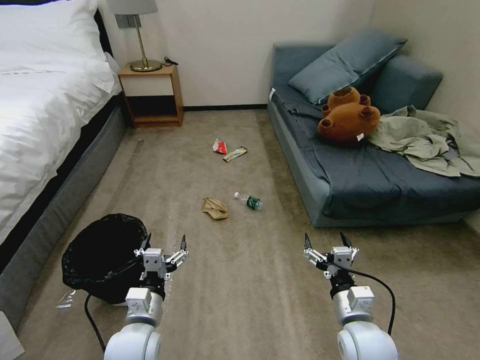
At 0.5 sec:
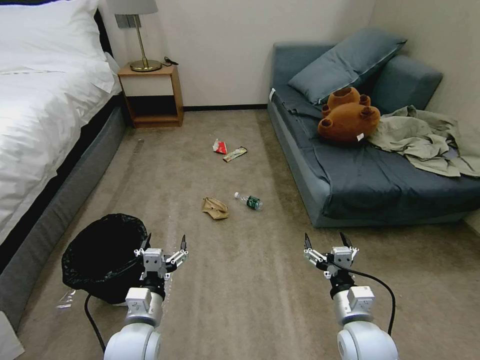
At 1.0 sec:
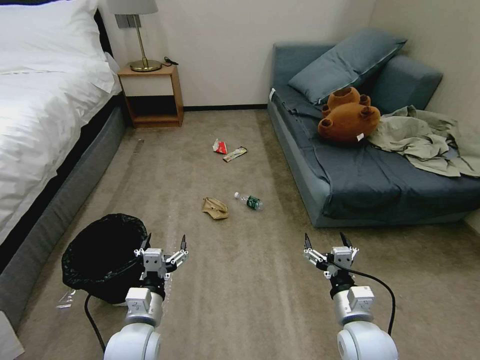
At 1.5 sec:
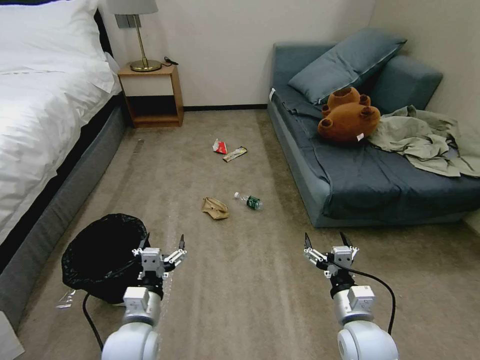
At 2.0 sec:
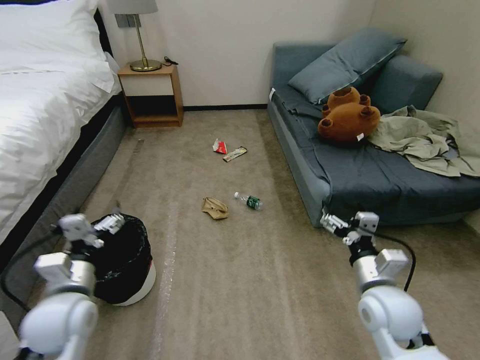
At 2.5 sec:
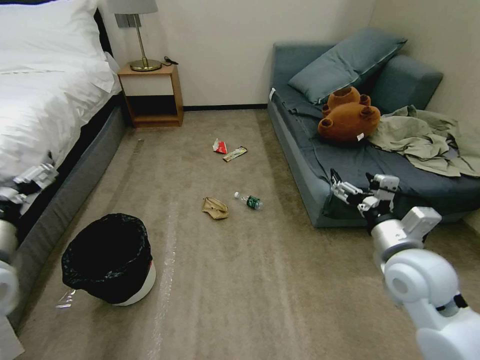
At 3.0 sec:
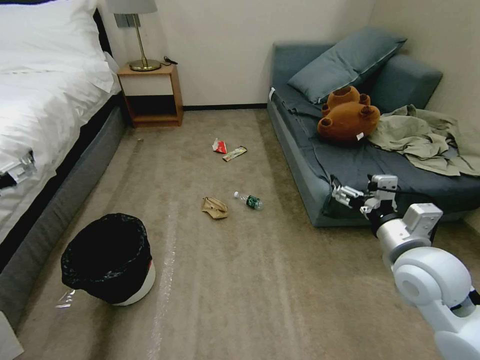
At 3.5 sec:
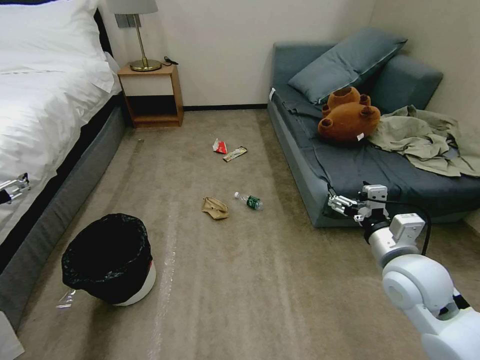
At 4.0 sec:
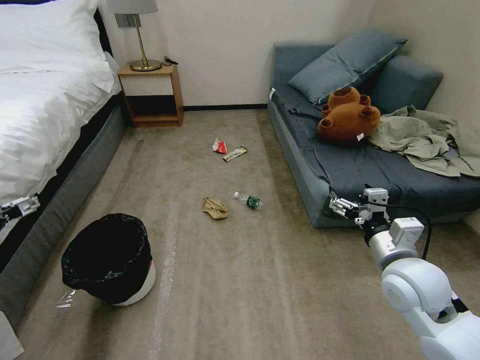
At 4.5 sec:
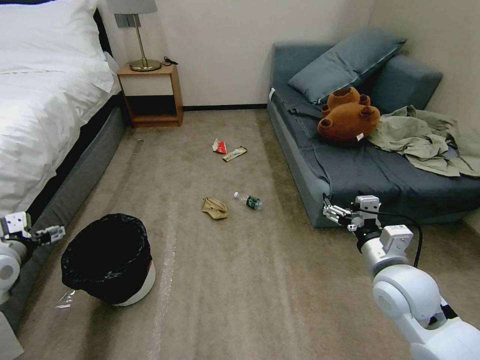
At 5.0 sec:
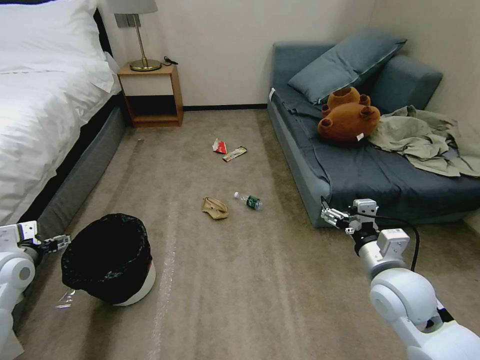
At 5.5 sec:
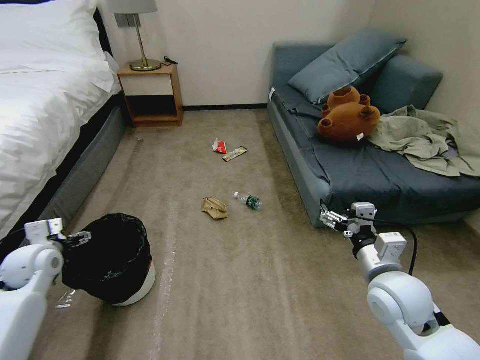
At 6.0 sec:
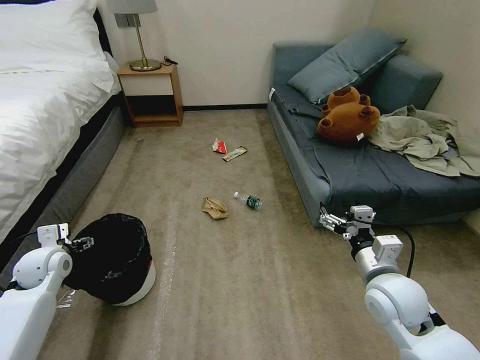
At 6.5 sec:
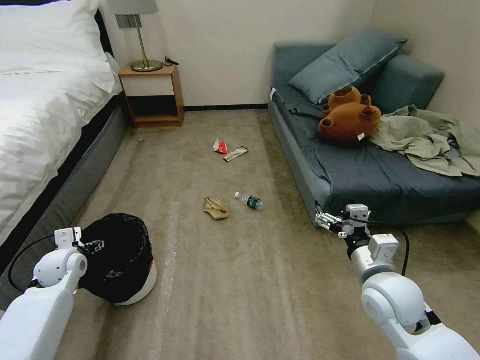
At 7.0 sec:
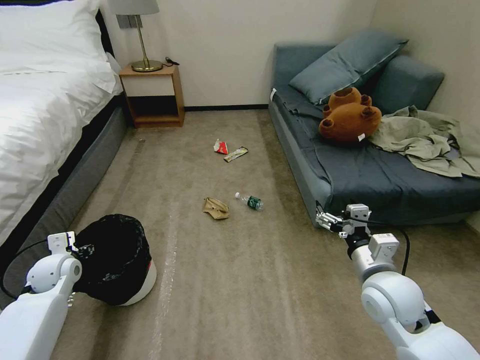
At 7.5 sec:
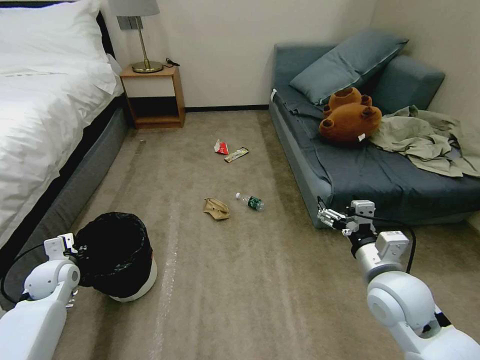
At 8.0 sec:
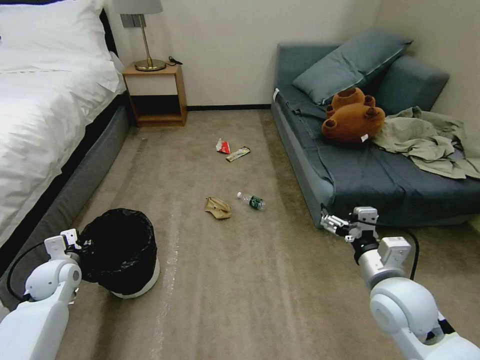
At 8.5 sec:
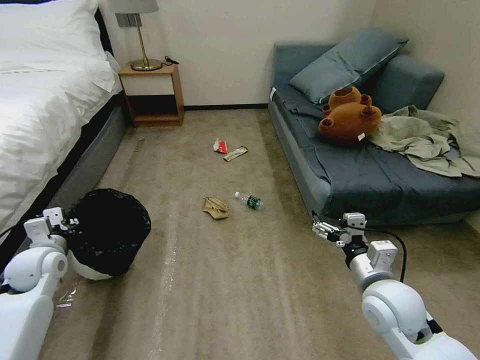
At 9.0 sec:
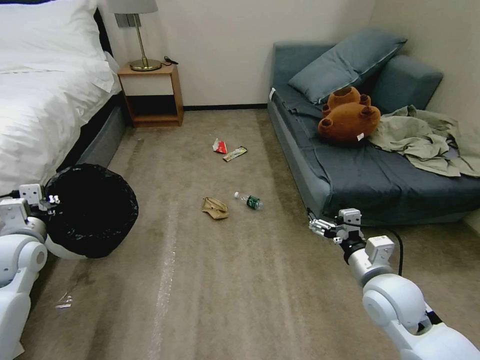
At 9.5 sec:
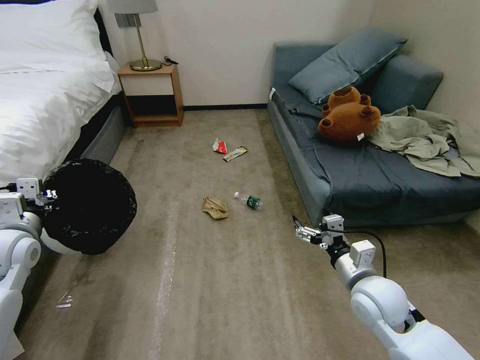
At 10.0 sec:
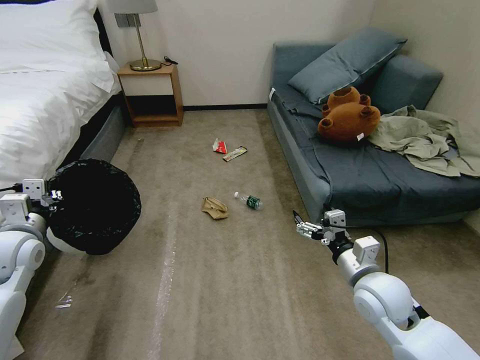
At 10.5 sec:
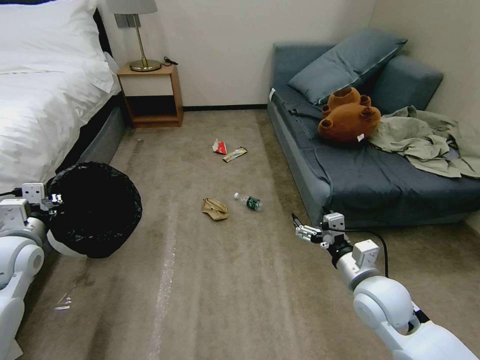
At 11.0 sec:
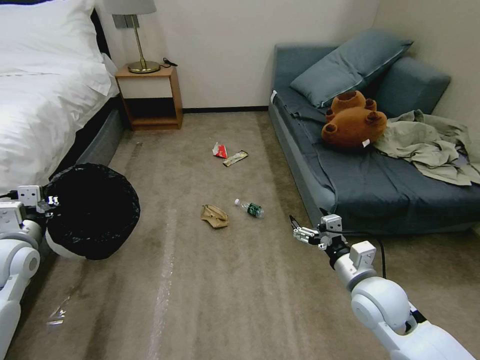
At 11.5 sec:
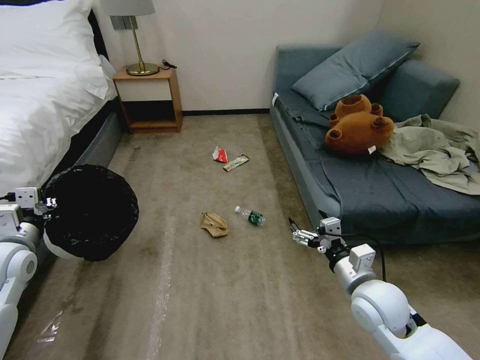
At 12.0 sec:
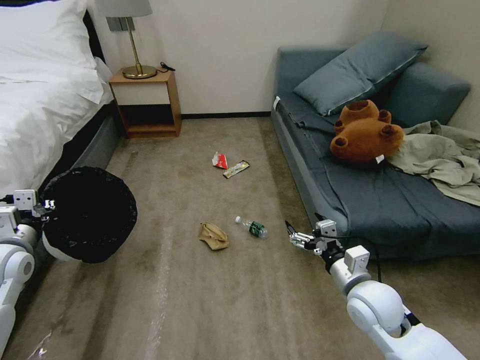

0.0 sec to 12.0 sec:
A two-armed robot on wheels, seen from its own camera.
Task of the whole recording: Pick up the trash bin, then pick up the garbage on the floor and place it into the trash bin.
2.0 sec to 4.0 sec: The left gripper travels to the left and upward by some 20 cm. The right gripper heads upward, covering some 5 cm.
4.0 sec to 6.0 sec: The left gripper goes approximately 20 cm downward and forward.
6.0 sec to 8.0 sec: The left gripper closes.
8.0 sec to 10.0 sec: The left gripper moves upward, about 15 cm.

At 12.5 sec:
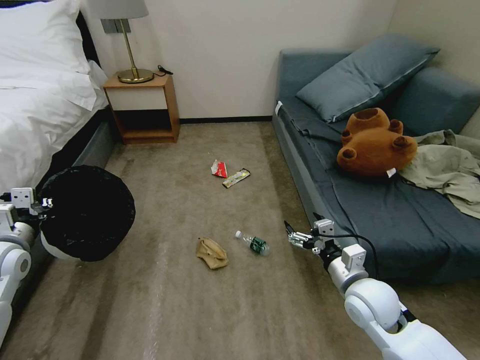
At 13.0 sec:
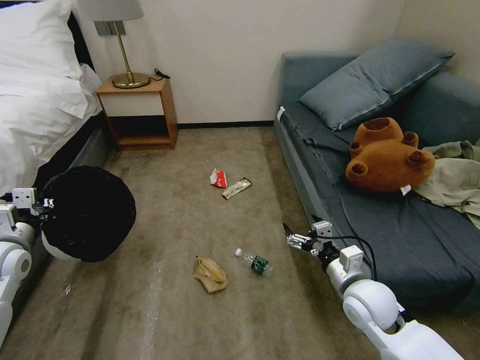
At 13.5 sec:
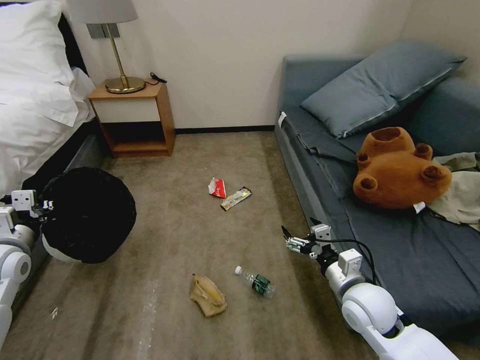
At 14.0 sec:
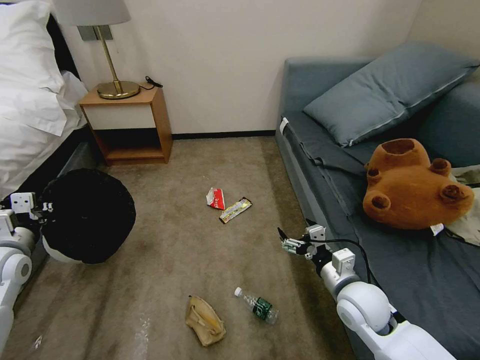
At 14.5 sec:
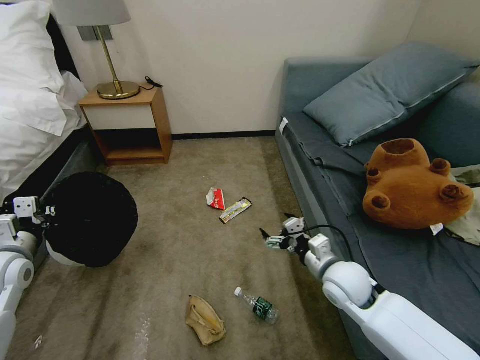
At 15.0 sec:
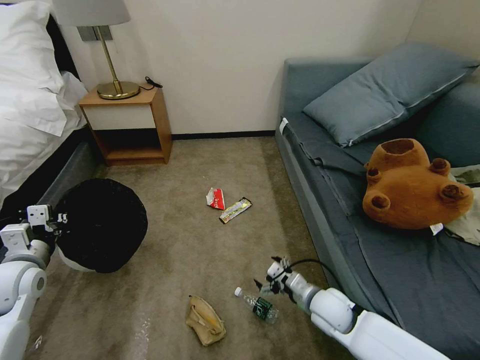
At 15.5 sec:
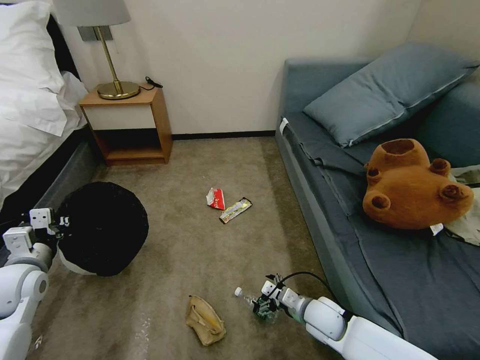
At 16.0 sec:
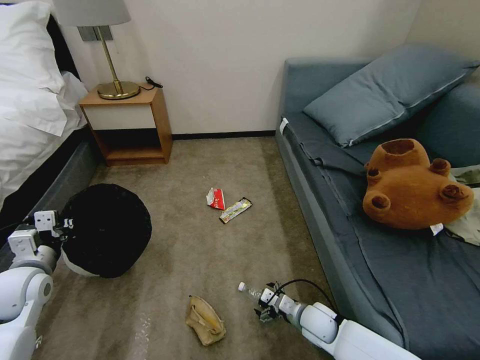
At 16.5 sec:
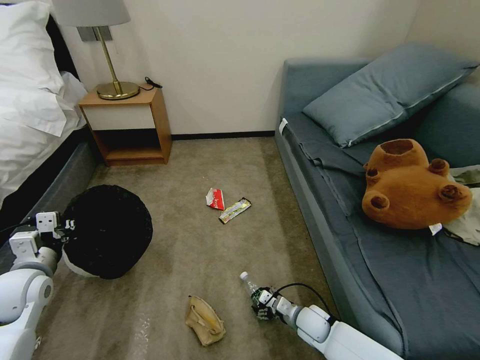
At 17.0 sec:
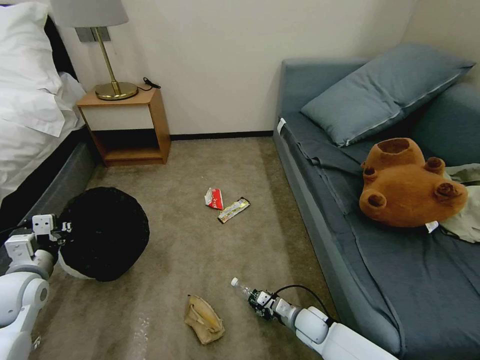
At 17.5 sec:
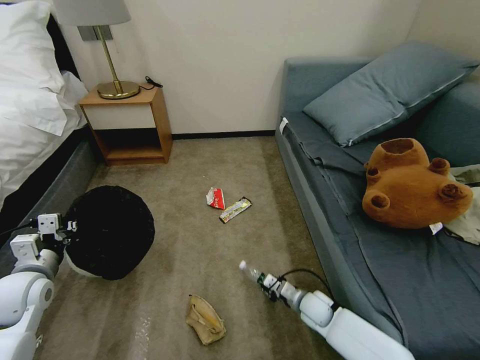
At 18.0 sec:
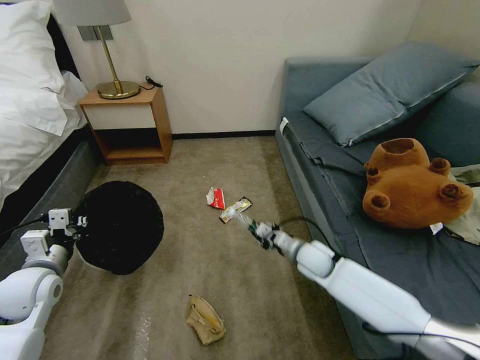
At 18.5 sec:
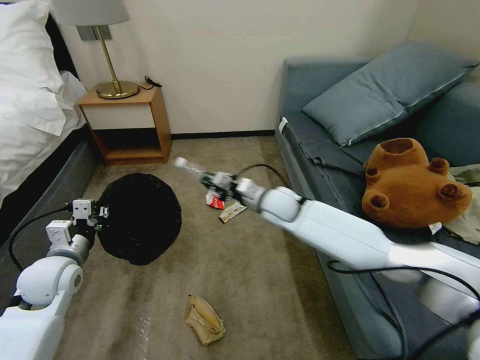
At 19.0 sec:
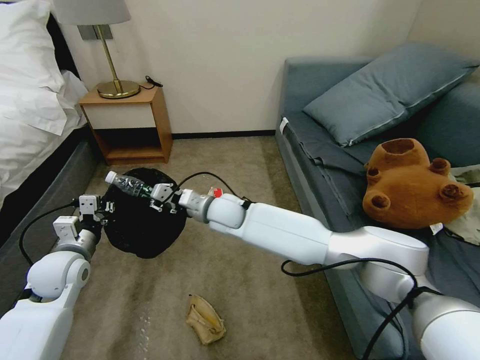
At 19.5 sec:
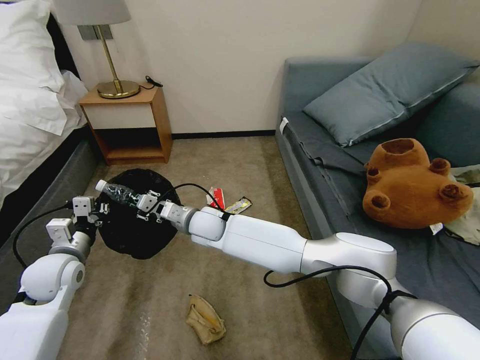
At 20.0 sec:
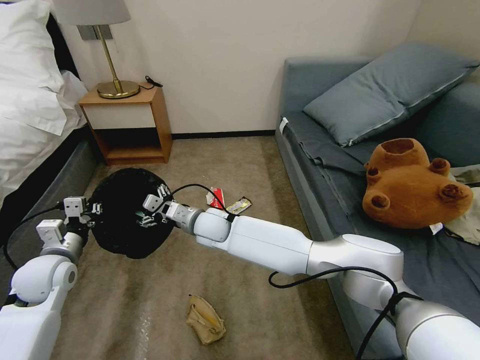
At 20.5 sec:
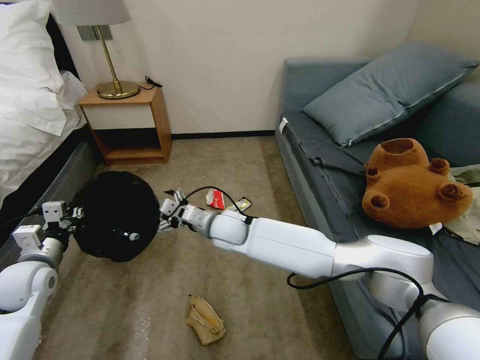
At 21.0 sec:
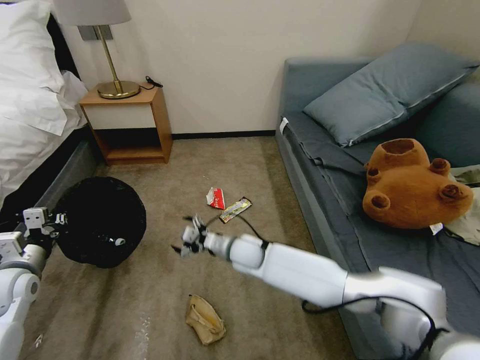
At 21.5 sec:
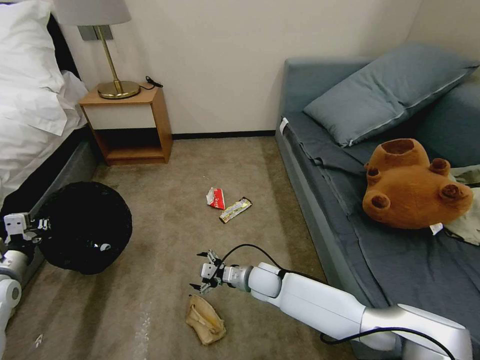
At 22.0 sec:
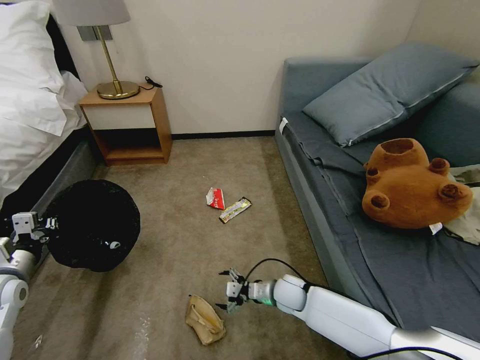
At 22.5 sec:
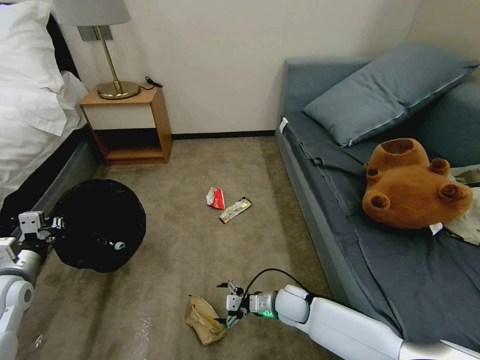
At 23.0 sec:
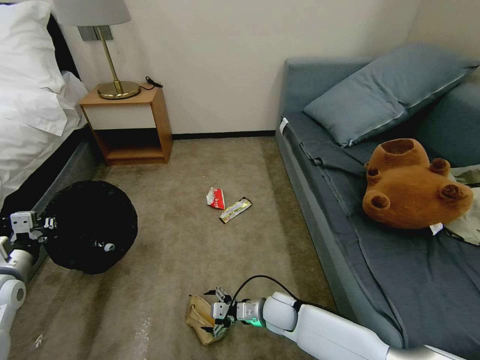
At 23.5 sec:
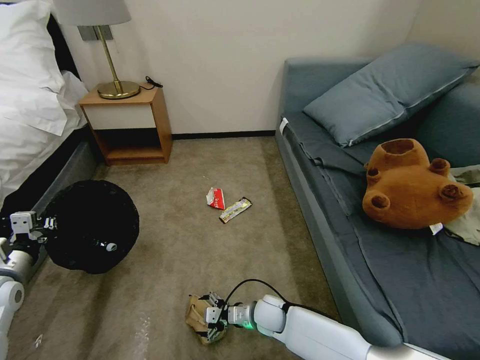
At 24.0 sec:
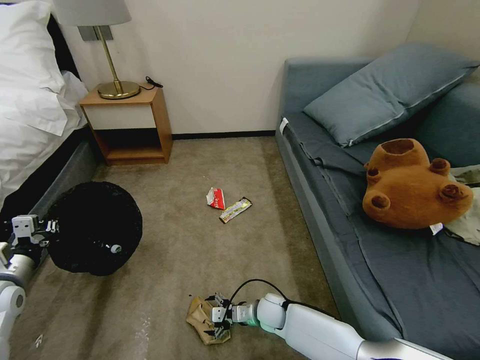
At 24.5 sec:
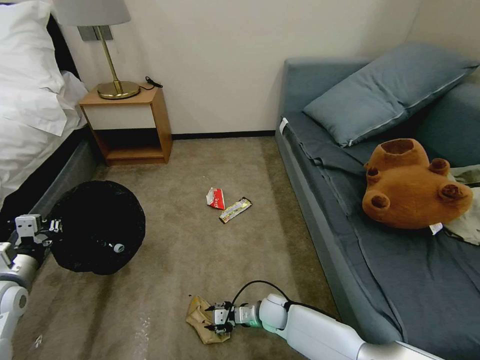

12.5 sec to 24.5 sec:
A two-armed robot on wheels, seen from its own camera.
Task of the whole recording: Pick up the trash bin, then pick up the garbage on the floor and place it into the trash bin.
14.5 sec to 16.5 sec: The left gripper changes place by approximately 5 cm, while the right gripper is displaced downward by about 20 cm.
16.5 sec to 18.5 sec: The right gripper moves upward and forward, roughly 30 cm, and closes up.
18.5 sec to 20.5 sec: The right gripper heads to the left, covering roughly 20 cm, and opens its fingers.
20.5 sec to 22.5 sec: The right gripper heads downward, to the right and backward, covering approximately 30 cm.
22.5 sec to 24.5 sec: The right gripper heads downward, covering roughly 5 cm, and closes its fingers.

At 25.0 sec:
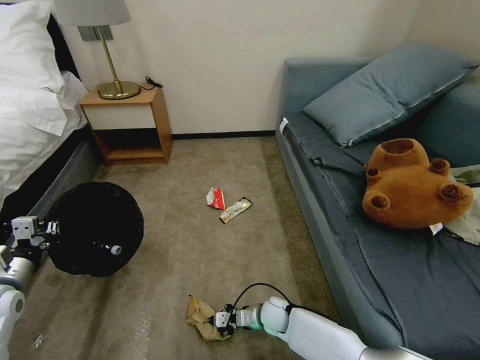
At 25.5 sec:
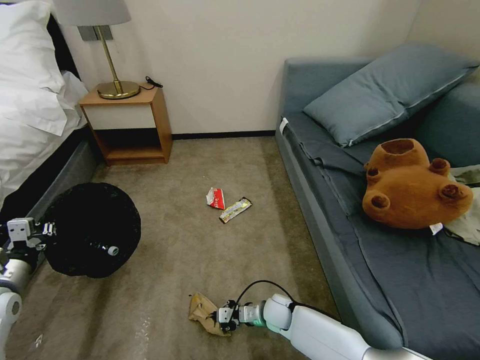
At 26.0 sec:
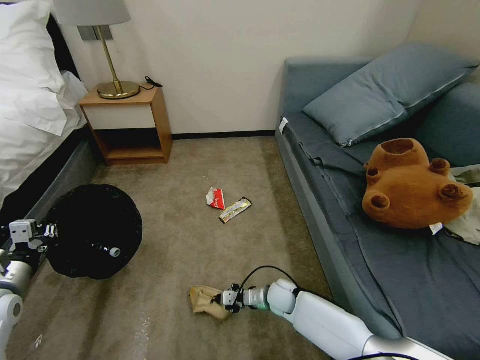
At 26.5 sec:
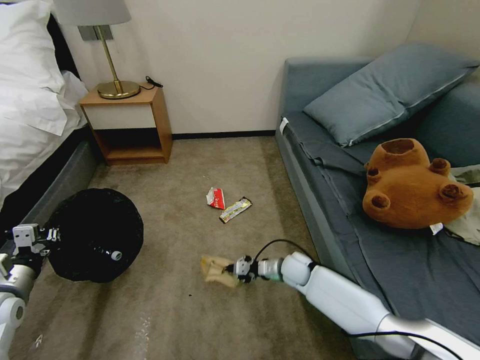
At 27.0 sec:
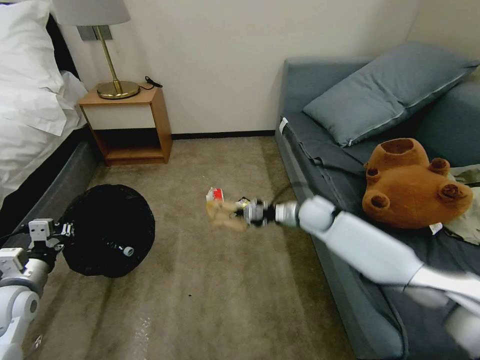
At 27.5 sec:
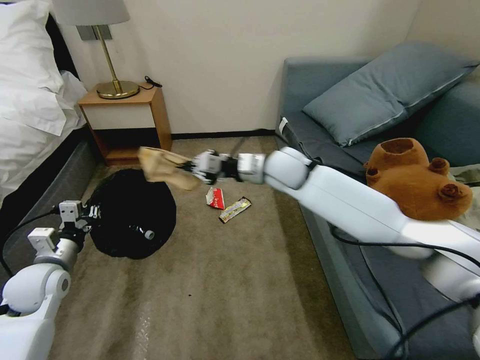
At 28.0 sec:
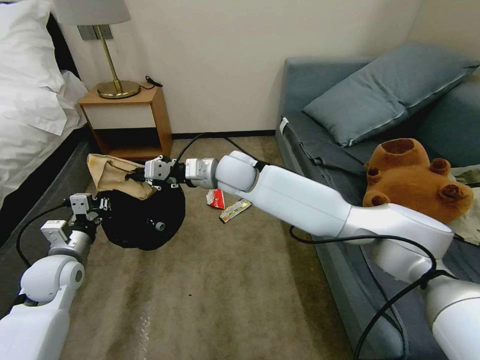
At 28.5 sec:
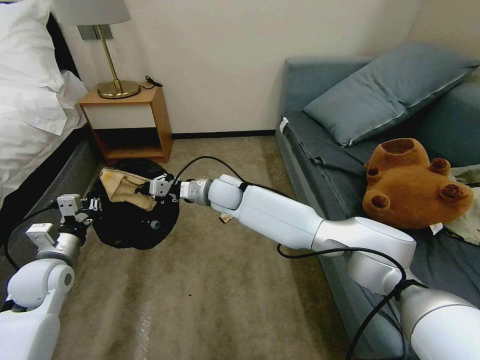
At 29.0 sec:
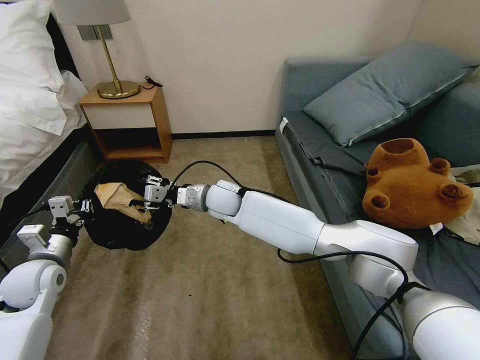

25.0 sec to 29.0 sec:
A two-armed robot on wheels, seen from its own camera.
Task of the whole recording: Pick up the trash bin, then pick up the garbage on the floor and place it into the trash bin.
25.0 sec to 27.0 sec: The right gripper is displaced upward, forward and to the right by about 35 cm.
27.0 sec to 29.0 sec: The right gripper goes approximately 25 cm to the left, and opens up. Meanwhile the left gripper heads forward, covering about 5 cm.
